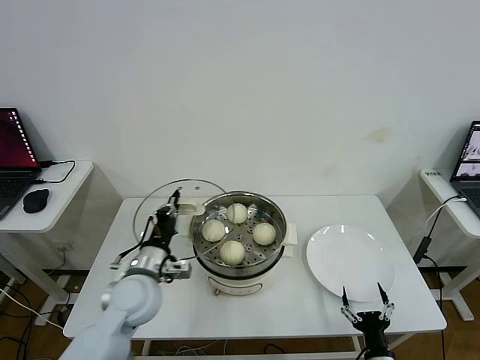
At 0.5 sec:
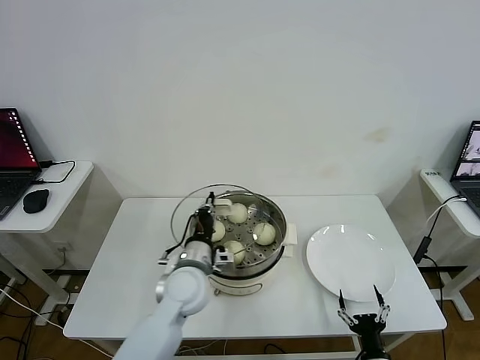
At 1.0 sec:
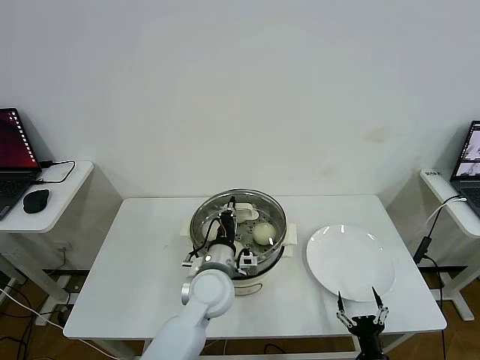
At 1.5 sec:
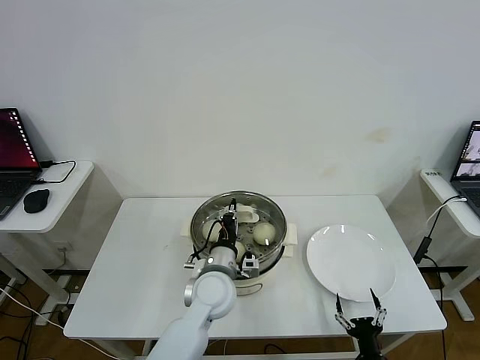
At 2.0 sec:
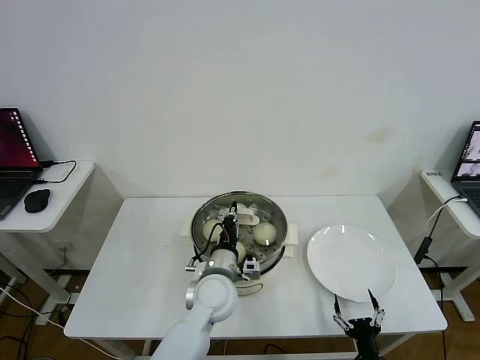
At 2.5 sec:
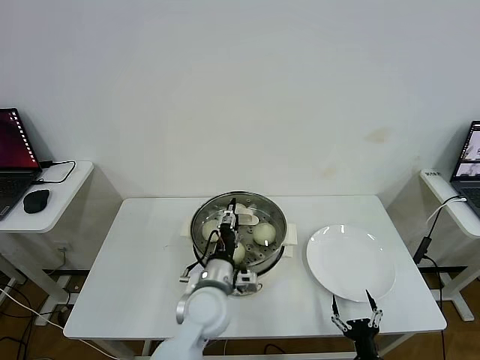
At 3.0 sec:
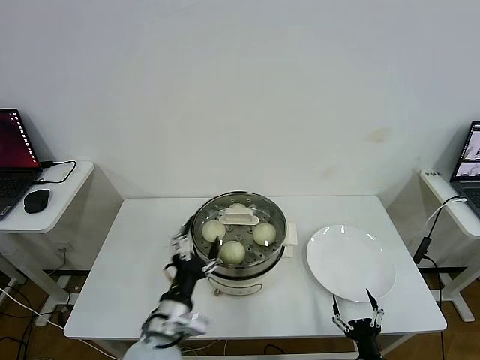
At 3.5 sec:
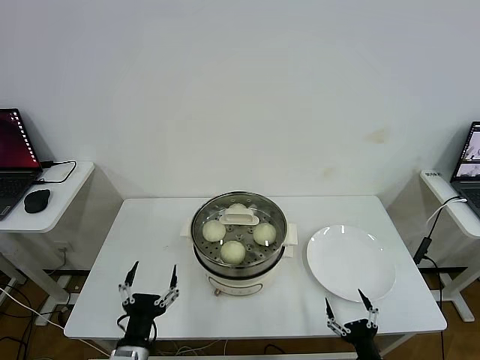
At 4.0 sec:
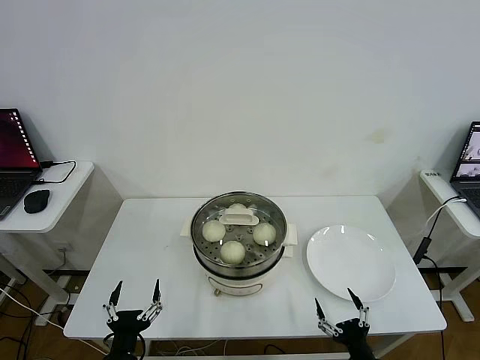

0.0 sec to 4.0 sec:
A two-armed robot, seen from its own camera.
Step, 0.0 sec to 2.5 sec: Place the pot lid on the steamer with left gripper.
0.0 sec to 2.0 sec: The left gripper shifts approximately 15 cm to the right.
2.0 sec to 4.0 sec: The right gripper shifts about 5 cm upward. The left gripper heads backward and to the left, covering approximately 30 cm, and opens.

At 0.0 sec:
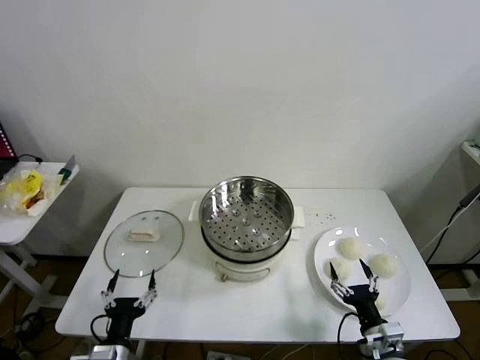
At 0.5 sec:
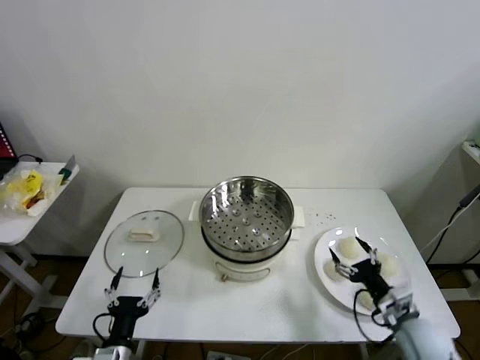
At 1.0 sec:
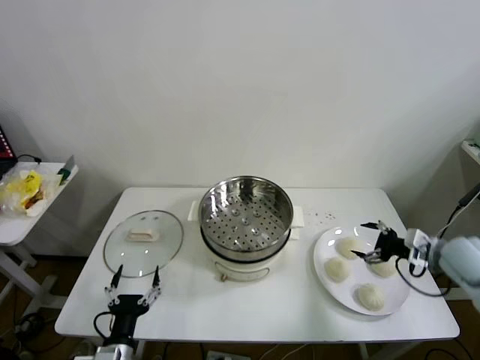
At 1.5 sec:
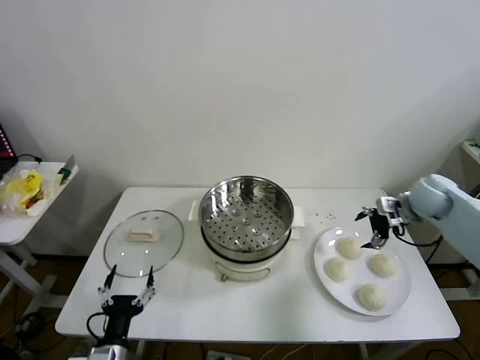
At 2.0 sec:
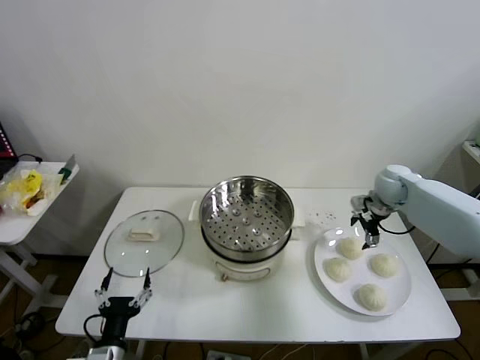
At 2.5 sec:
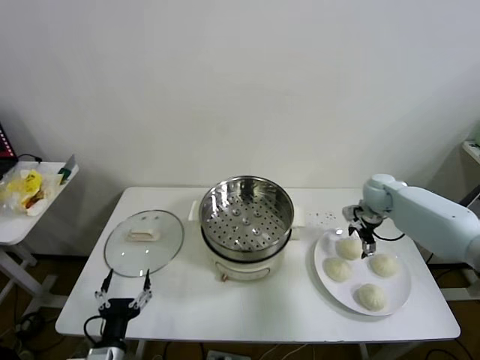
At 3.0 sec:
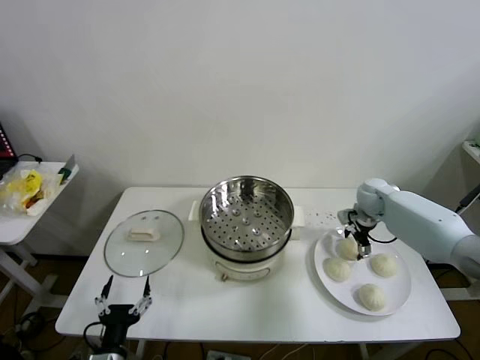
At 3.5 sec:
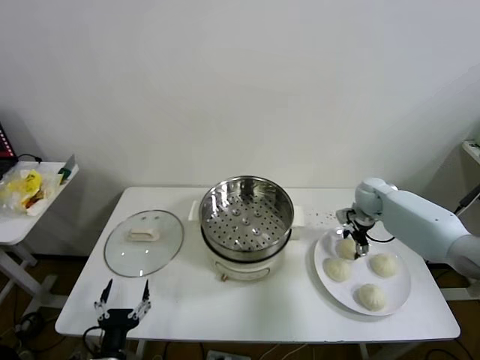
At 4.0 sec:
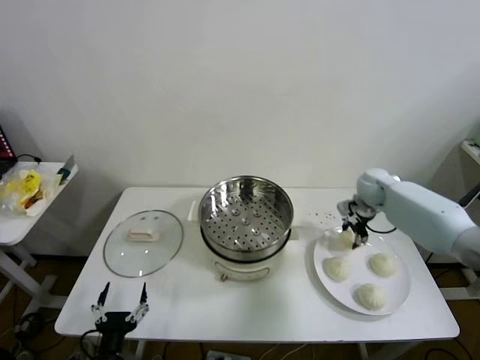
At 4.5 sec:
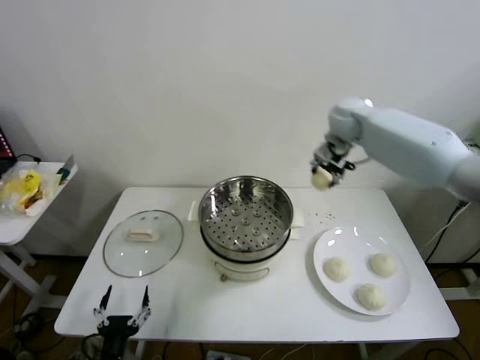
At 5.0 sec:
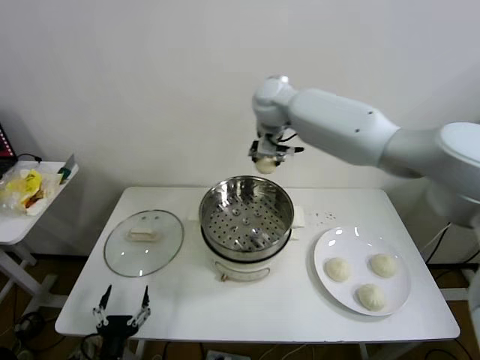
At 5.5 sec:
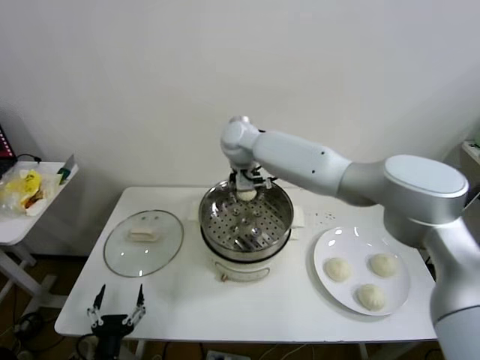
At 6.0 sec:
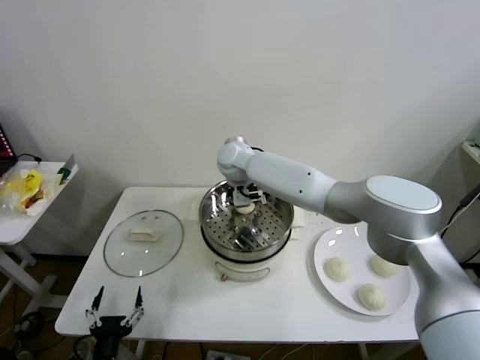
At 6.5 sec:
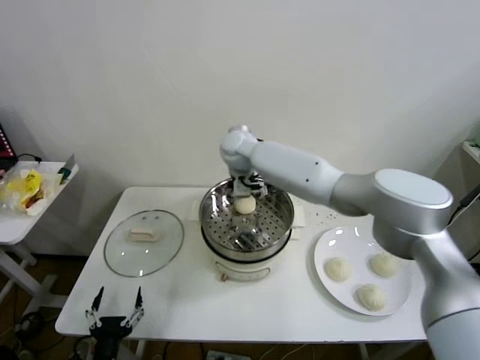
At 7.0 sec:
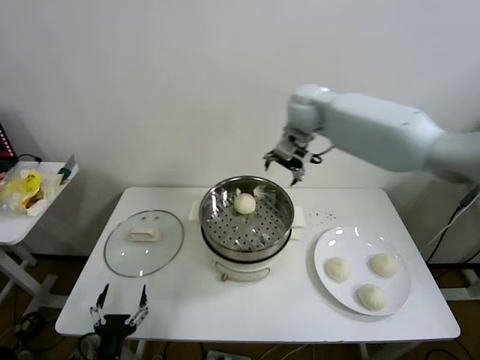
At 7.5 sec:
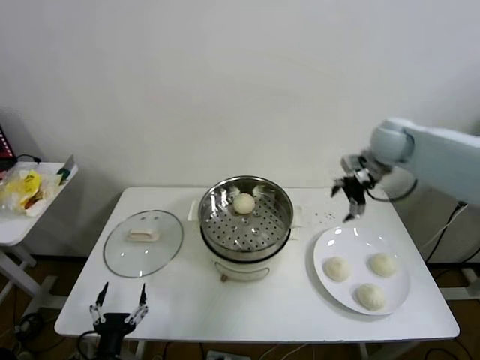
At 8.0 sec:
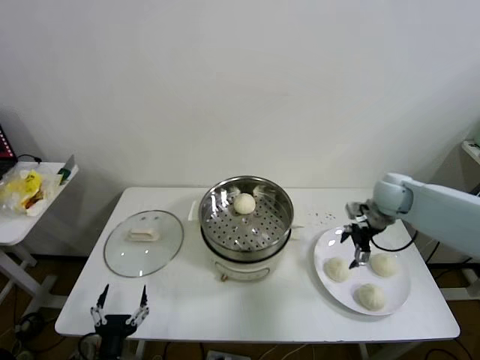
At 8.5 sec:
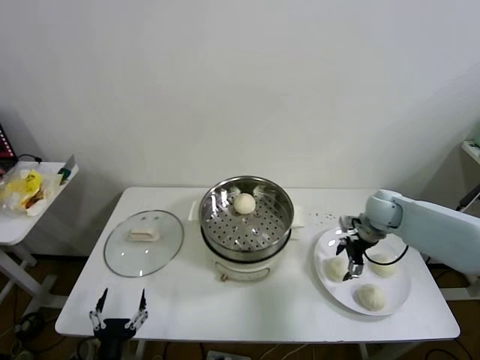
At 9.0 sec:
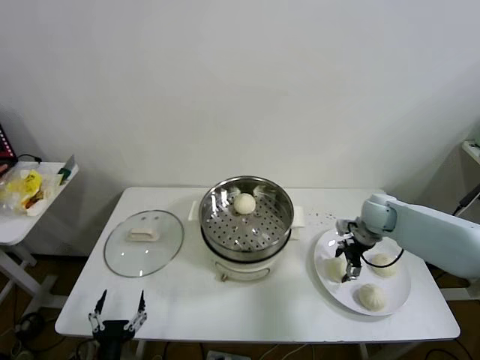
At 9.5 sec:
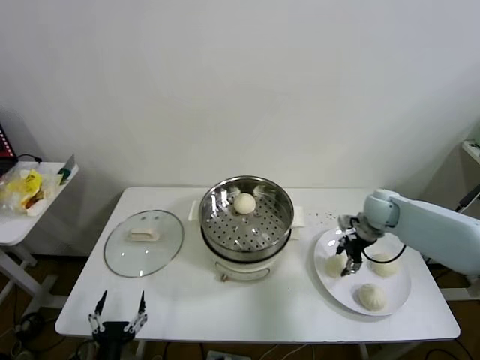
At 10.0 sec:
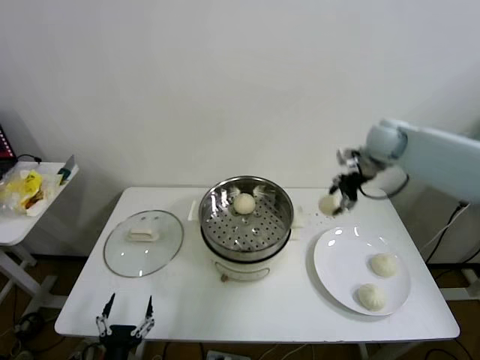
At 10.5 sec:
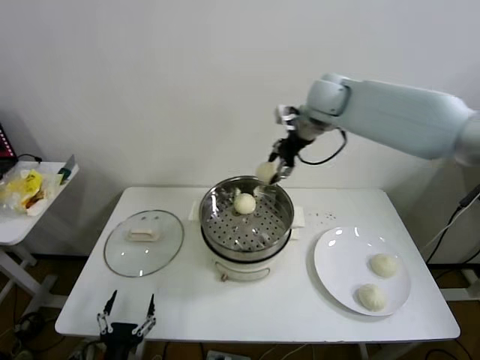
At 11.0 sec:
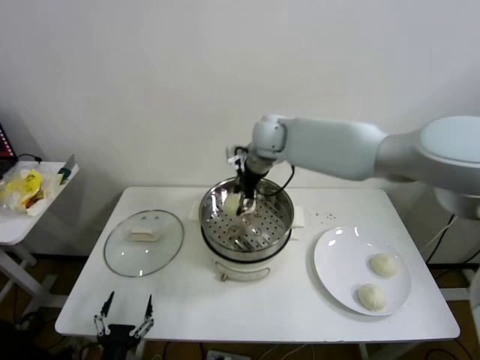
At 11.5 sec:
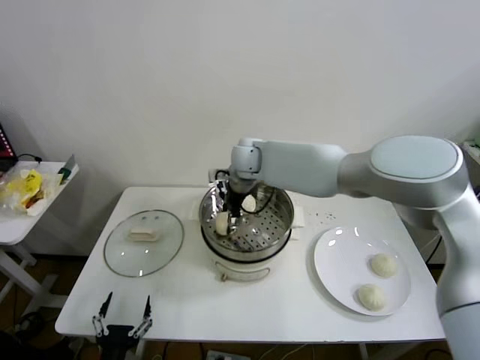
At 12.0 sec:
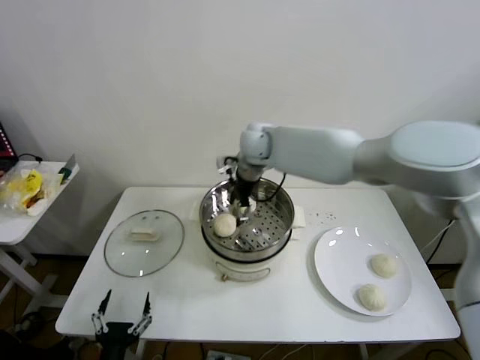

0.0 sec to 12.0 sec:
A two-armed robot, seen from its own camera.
Step, 0.0 sec to 3.0 sec: Grasp the baozi in the plate with right gripper.
Step, 4.0 sec to 6.0 sec: Place the baozi on the steamer with right gripper.
Step, 6.5 sec to 9.0 sec: Grasp the baozi in the plate with right gripper.
Step, 9.5 sec to 11.5 sec: Place the baozi on the steamer with right gripper.
2.0 sec to 4.0 sec: The right gripper closes.
4.0 sec to 6.0 sec: The right gripper travels to the left by approximately 35 cm, and opens its fingers.
6.0 sec to 8.0 sec: The right gripper shifts roughly 40 cm to the right.
8.0 sec to 10.0 sec: The right gripper shifts approximately 20 cm upward and forward, and closes its fingers.
10.0 sec to 12.0 sec: The right gripper goes approximately 25 cm to the left, and opens.

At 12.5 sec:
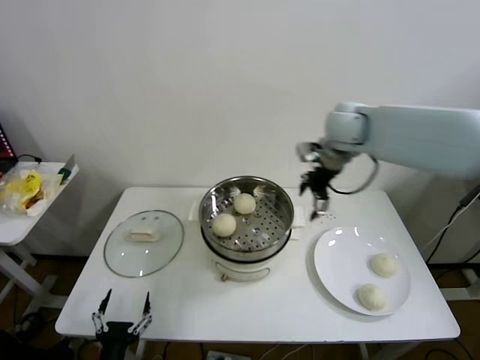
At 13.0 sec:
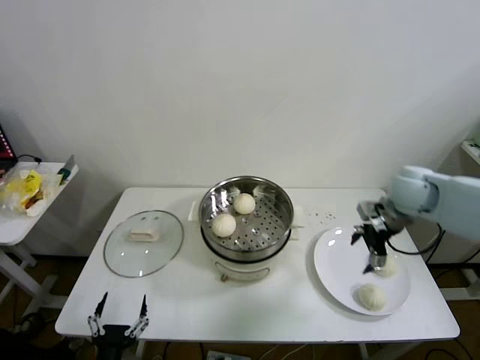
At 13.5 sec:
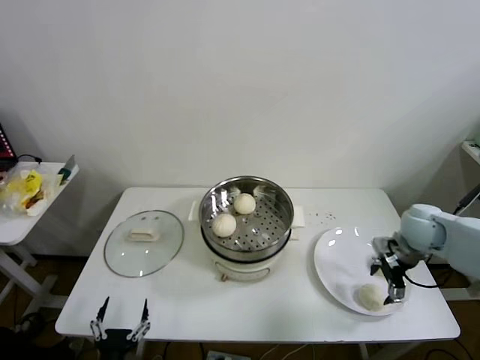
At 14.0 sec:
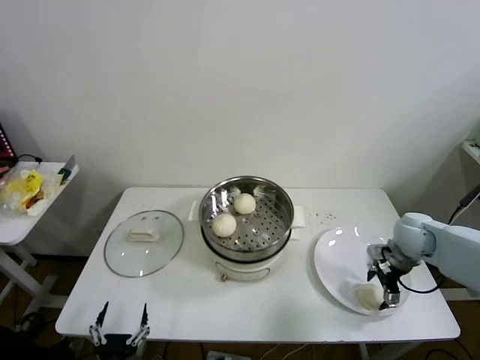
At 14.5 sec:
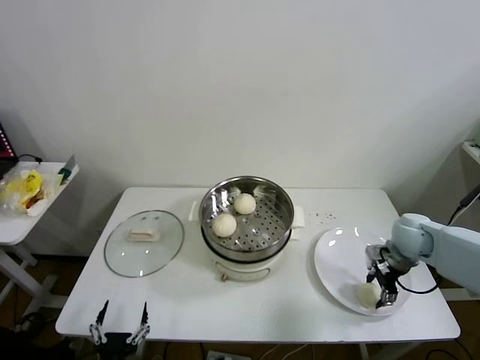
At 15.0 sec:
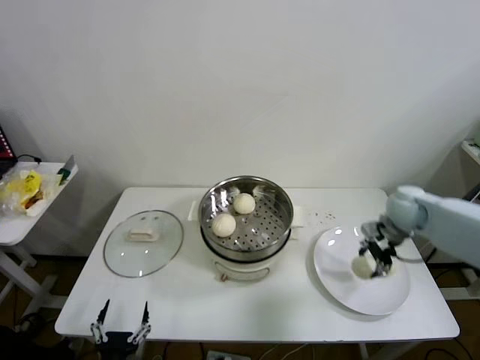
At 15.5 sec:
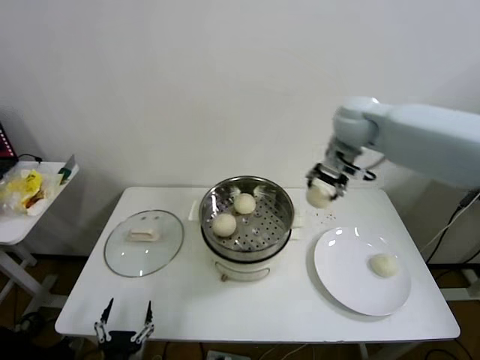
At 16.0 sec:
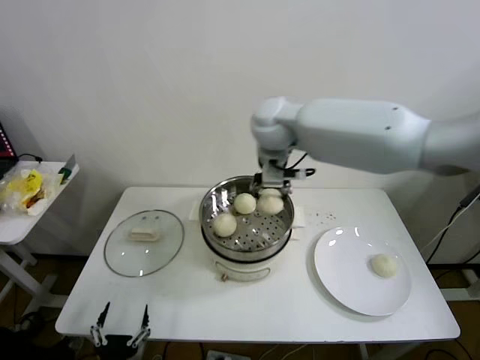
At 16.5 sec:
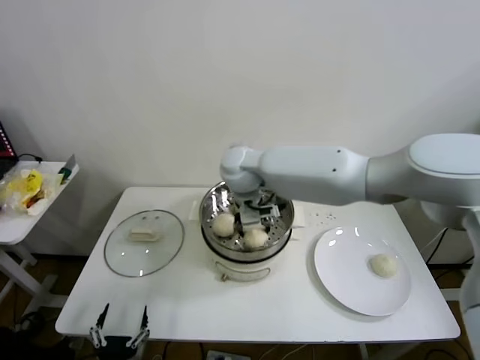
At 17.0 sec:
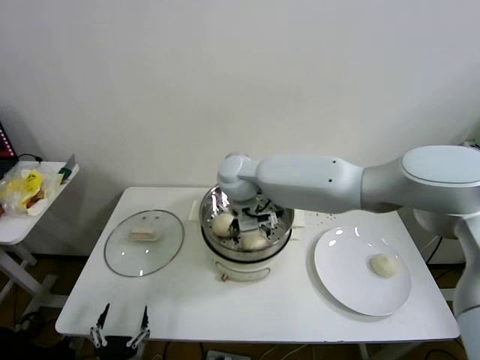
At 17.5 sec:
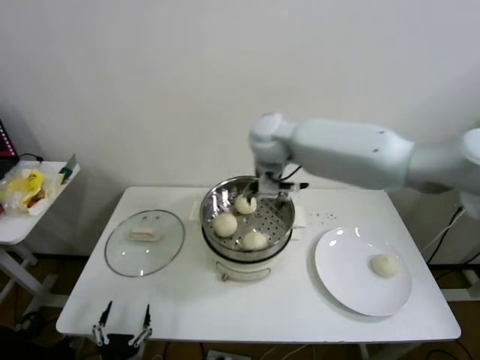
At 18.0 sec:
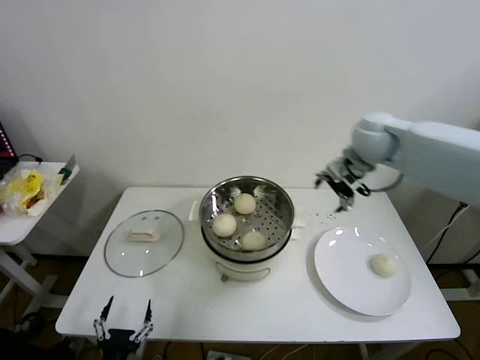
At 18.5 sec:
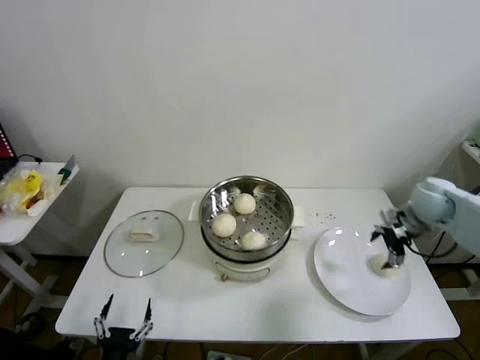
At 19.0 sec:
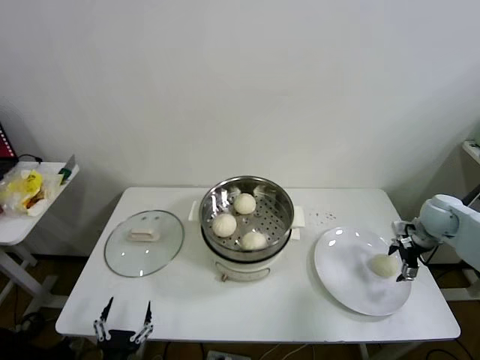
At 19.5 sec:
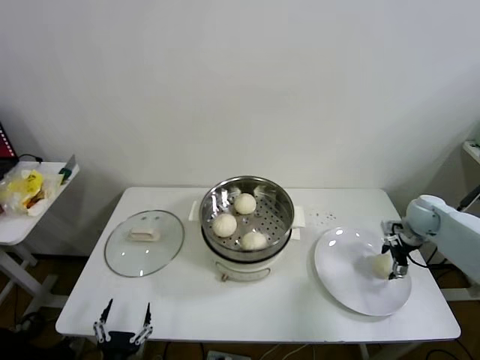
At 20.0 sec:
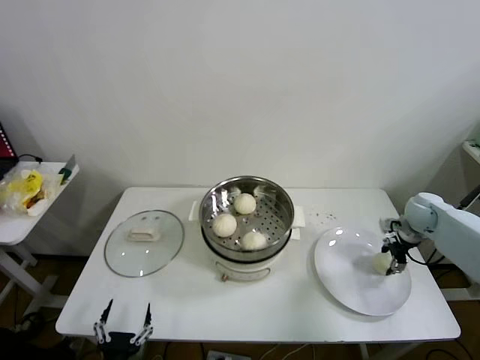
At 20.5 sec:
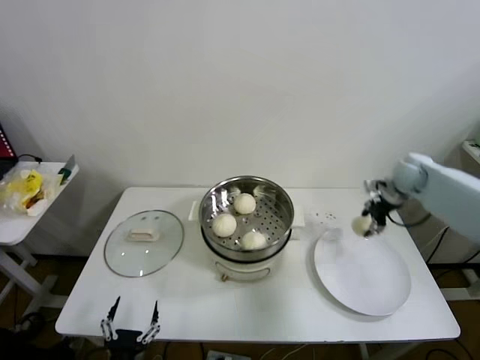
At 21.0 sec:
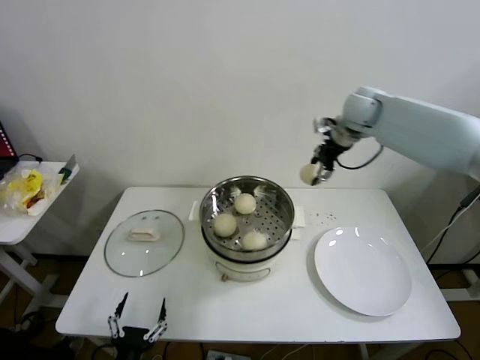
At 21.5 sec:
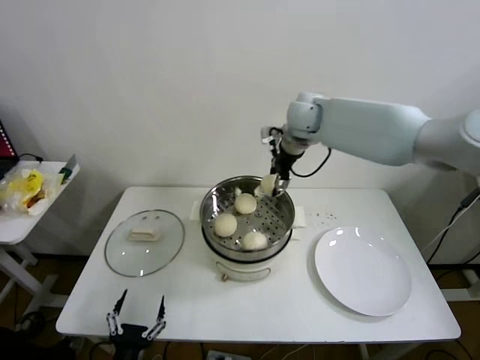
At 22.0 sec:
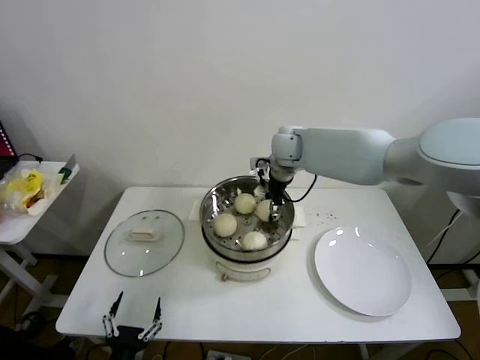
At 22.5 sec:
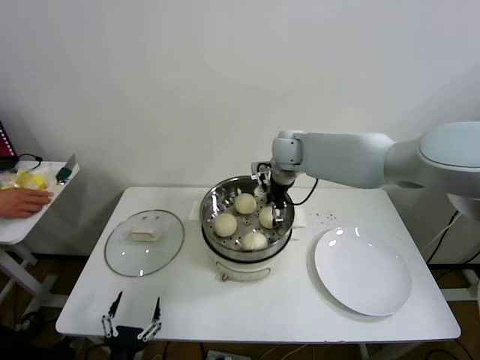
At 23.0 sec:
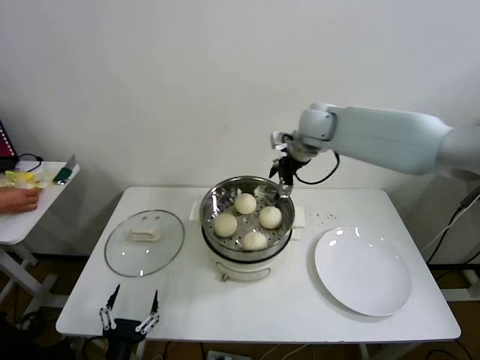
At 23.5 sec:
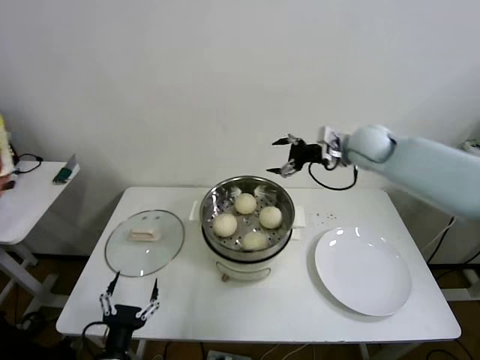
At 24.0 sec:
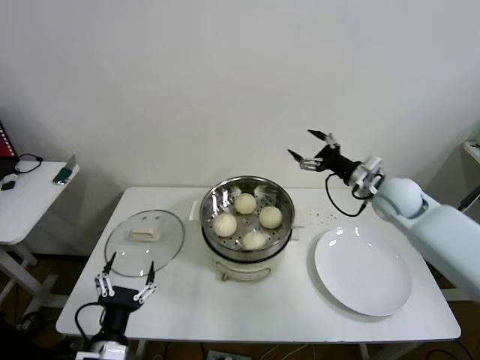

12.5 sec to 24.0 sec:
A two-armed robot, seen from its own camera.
Step, 12.5 sec to 14.0 sec: Grasp the baozi in the plate with right gripper.
Step, 14.5 sec to 16.5 sec: Place the baozi on the steamer with right gripper.
Step, 17.0 sec to 19.5 sec: Grasp the baozi in the plate with right gripper.
Step, 20.0 sec to 22.0 sec: Place the baozi on the steamer with right gripper.
12.5 sec to 14.5 sec: The right gripper heads downward, to the right and backward, covering about 30 cm, and closes up.
14.5 sec to 16.5 sec: The right gripper travels to the left by about 40 cm.
16.5 sec to 18.5 sec: The right gripper goes some 40 cm to the right, and opens its fingers.
18.5 sec to 20.0 sec: The right gripper is displaced downward by about 10 cm, and closes its fingers.
20.0 sec to 22.0 sec: The right gripper shifts approximately 40 cm to the left and upward.
22.0 sec to 24.0 sec: The left gripper moves forward and upward, approximately 5 cm. The right gripper travels to the right and backward by some 25 cm, and opens up.
